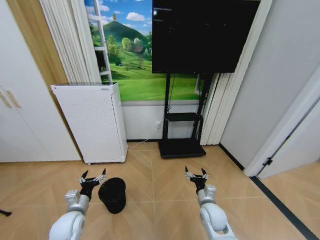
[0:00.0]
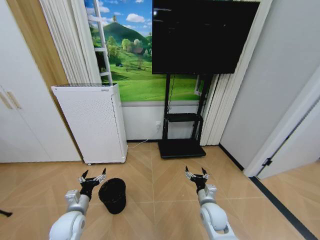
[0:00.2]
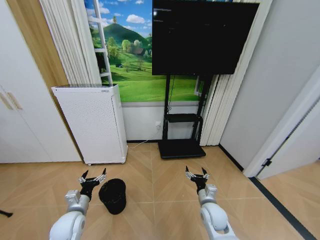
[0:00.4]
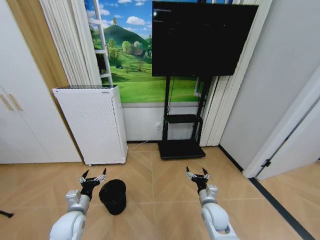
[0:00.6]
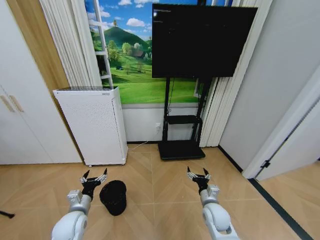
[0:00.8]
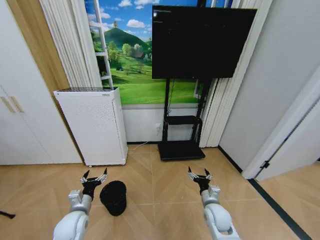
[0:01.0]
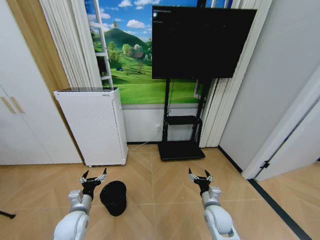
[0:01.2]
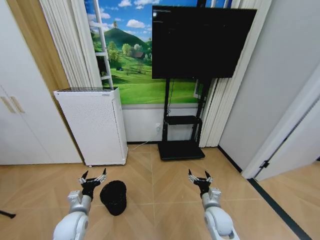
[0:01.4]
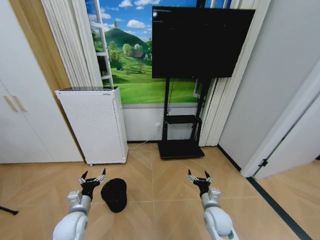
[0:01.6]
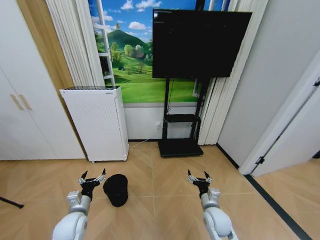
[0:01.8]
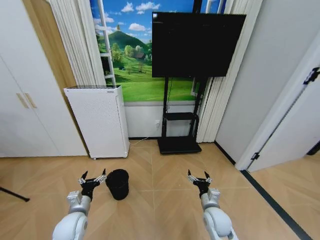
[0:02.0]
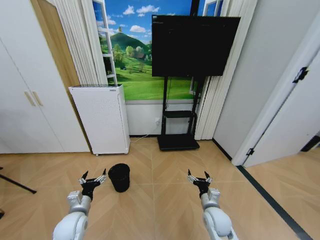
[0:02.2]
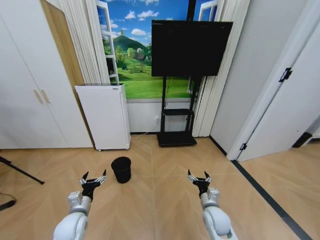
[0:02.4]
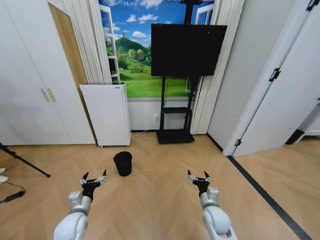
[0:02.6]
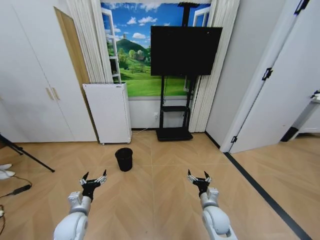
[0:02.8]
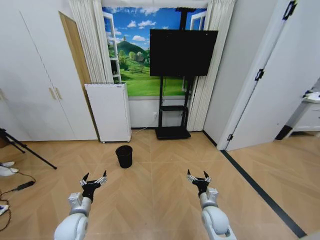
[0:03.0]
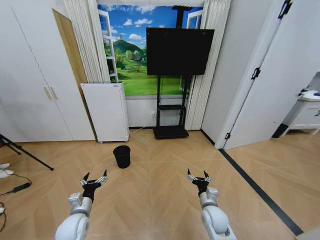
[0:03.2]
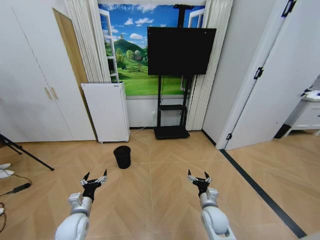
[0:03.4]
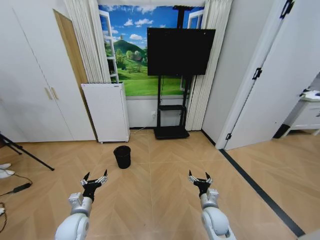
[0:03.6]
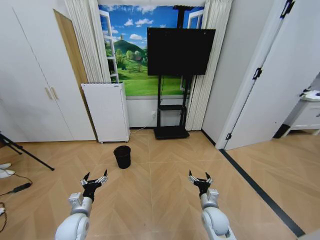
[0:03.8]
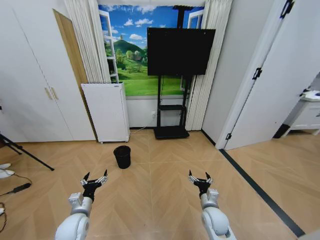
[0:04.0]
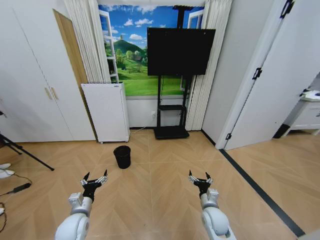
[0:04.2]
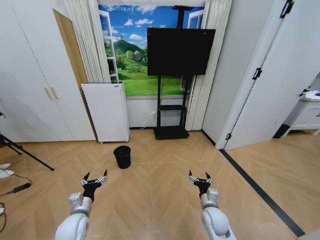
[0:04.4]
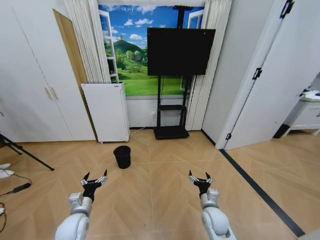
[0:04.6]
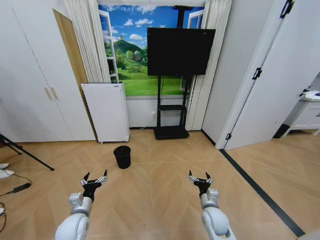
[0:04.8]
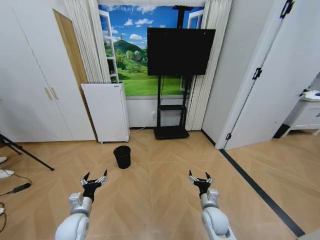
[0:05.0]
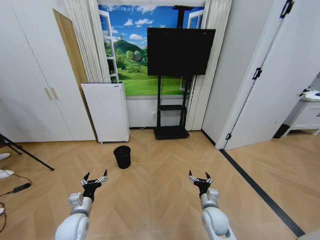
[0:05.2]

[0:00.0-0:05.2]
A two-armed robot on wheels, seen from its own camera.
Task of the whole recording: Pick up the trash bin and place the garbage on the floor into it.
0:03.4 to 0:05.2: The two grippers keep their place.

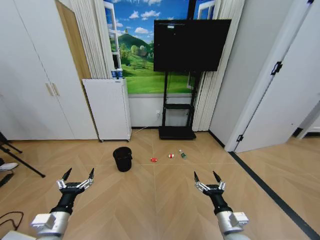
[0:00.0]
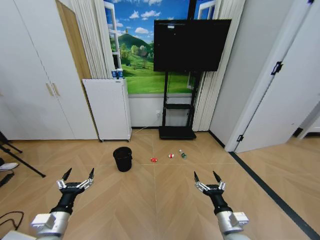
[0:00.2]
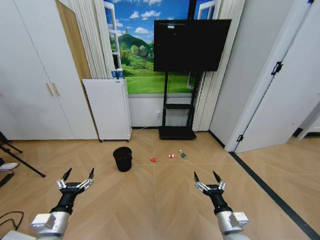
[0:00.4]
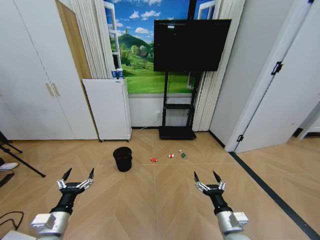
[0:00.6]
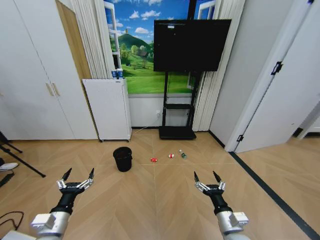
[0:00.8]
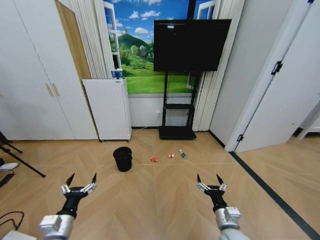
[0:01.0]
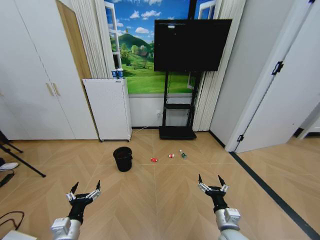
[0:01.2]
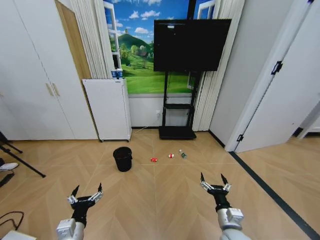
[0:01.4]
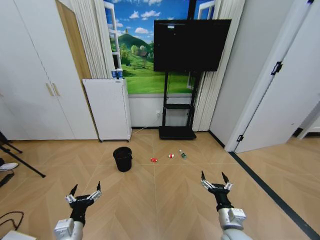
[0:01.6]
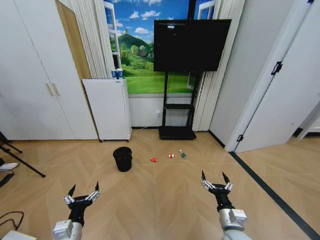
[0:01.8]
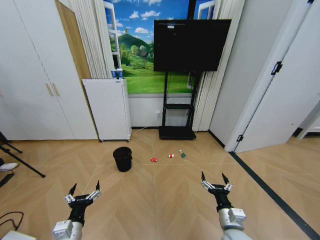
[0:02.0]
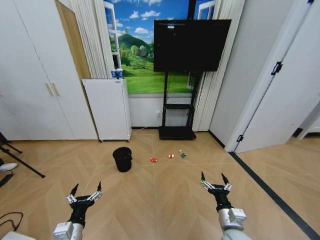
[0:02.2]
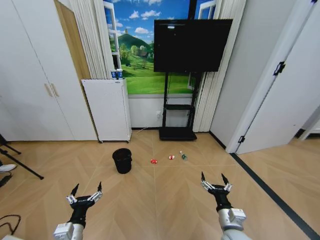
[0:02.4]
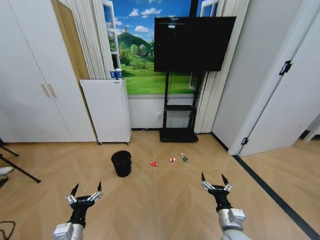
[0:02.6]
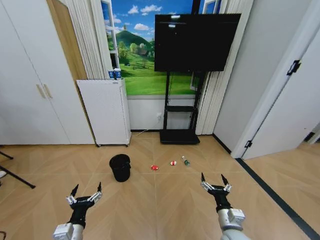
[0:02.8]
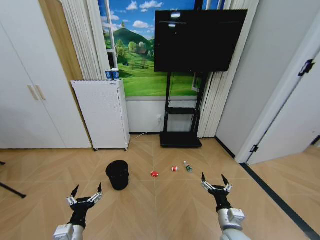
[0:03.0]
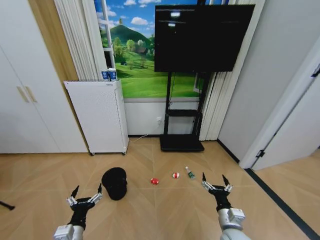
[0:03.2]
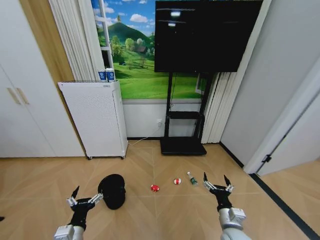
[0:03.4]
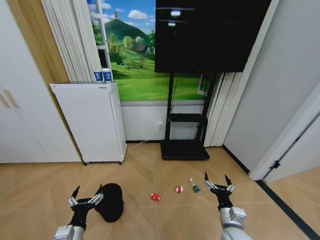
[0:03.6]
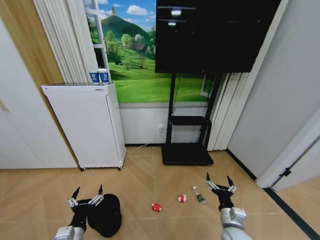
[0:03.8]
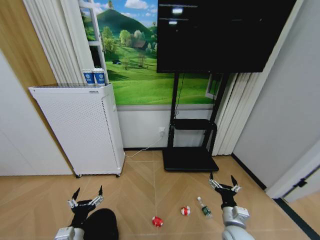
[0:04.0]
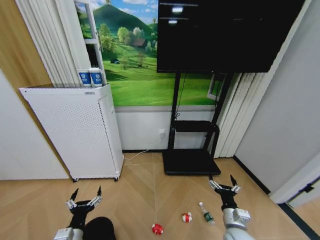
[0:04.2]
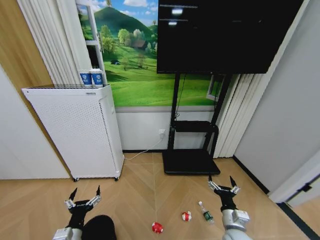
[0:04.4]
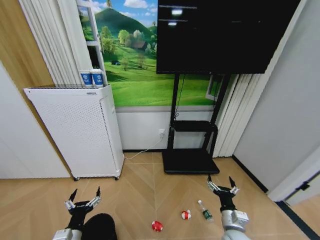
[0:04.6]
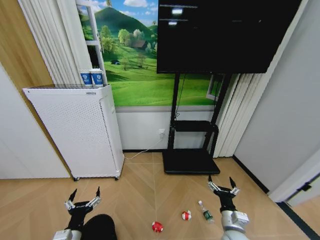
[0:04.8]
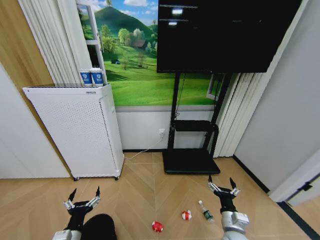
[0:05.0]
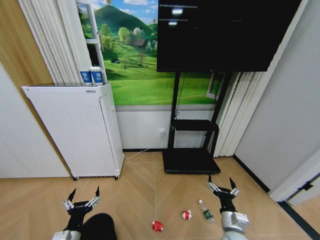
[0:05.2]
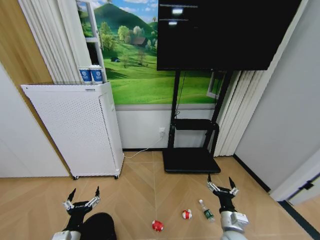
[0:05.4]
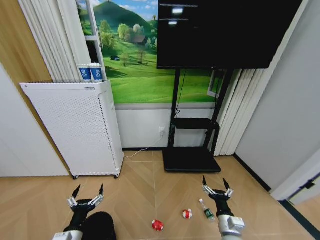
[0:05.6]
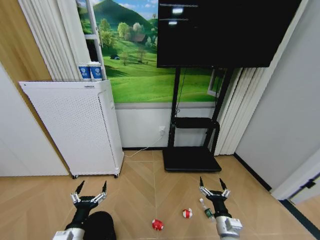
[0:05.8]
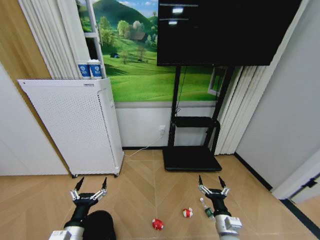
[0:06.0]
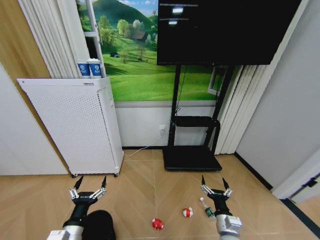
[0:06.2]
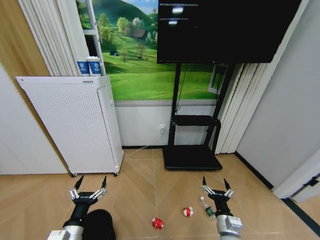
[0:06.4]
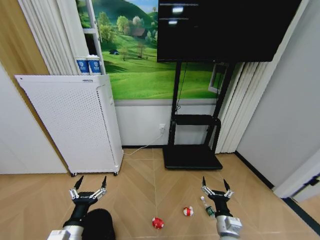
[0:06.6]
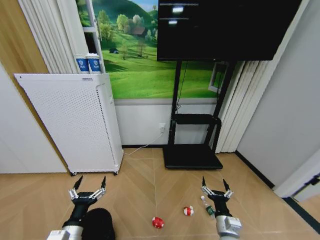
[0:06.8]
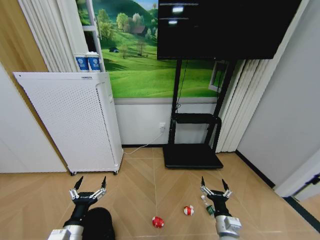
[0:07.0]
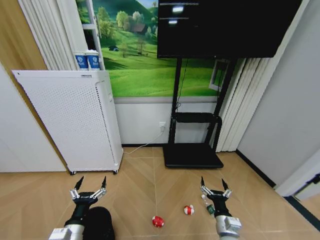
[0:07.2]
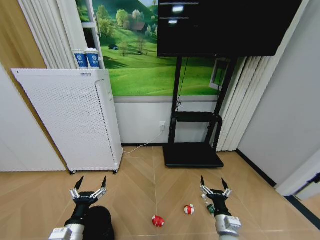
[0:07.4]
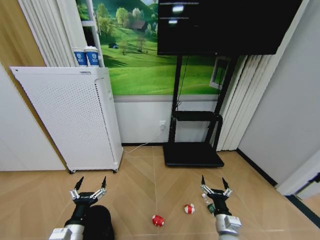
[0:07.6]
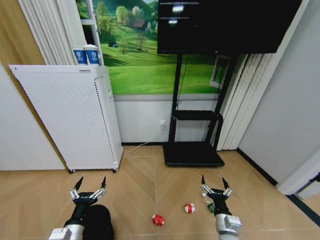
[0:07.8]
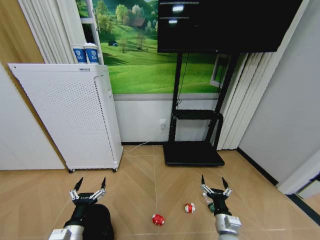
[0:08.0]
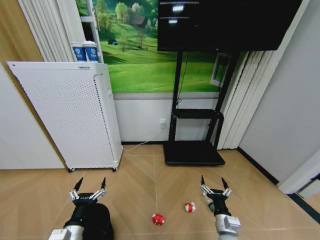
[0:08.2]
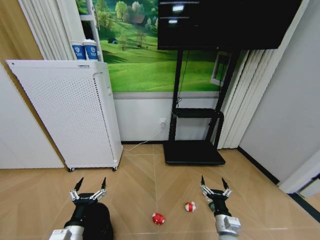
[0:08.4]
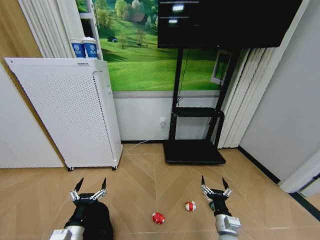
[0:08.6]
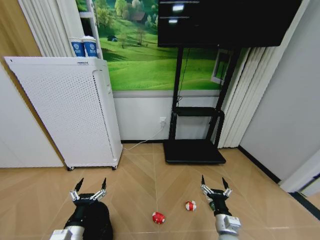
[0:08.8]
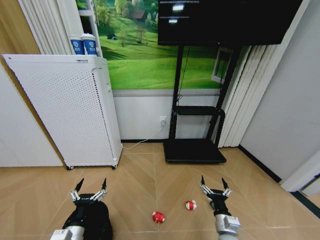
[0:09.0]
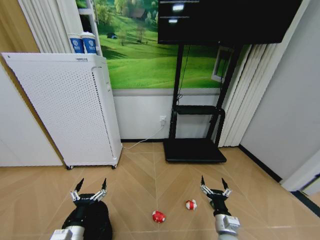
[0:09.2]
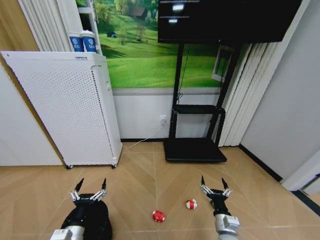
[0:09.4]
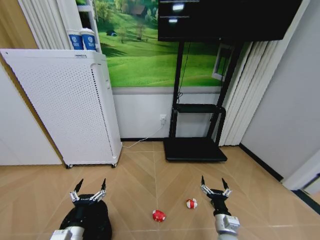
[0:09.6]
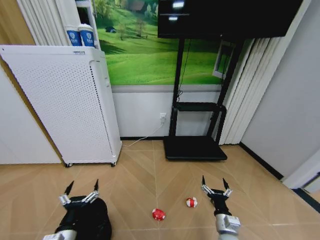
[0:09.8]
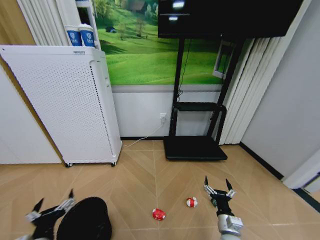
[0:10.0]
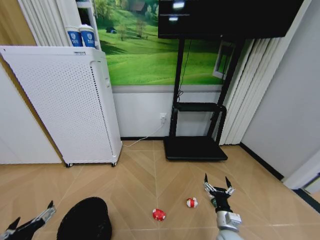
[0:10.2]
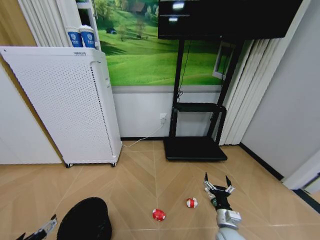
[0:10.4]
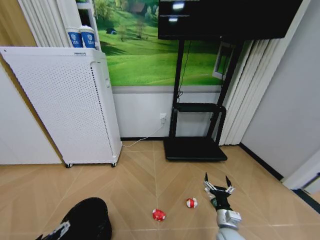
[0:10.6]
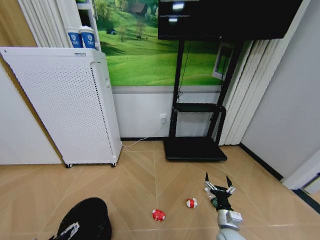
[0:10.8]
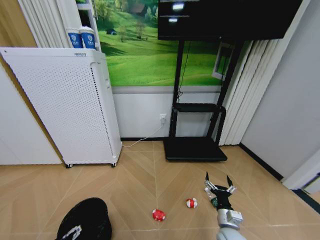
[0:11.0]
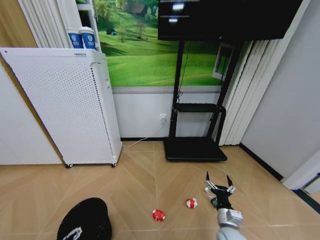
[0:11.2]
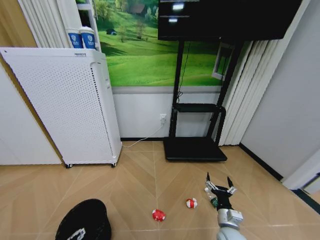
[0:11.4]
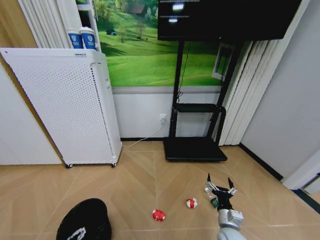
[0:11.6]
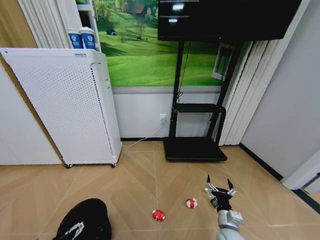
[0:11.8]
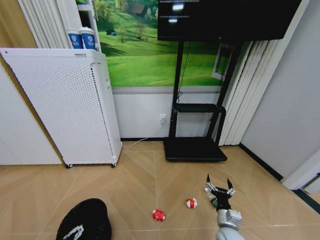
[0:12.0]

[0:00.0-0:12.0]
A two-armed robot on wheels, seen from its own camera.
Task of the whole recording: Pick up the trash bin and place the garbage on the floor into it.
0:04.4 to 0:07.6: There are only small adjustments of the grippers.
0:07.6 to 0:09.0: Neither gripper changes place.
0:09.0 to 0:10.4: The left gripper goes some 10 cm to the left, upward and backward.

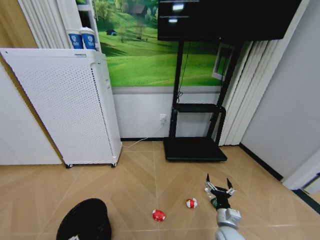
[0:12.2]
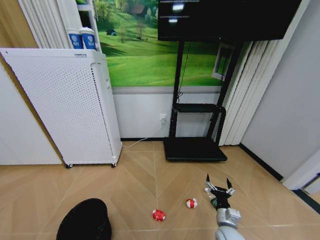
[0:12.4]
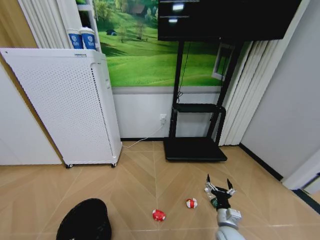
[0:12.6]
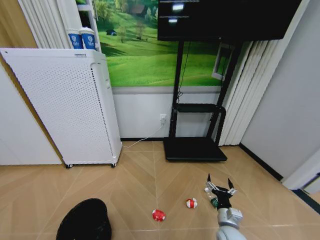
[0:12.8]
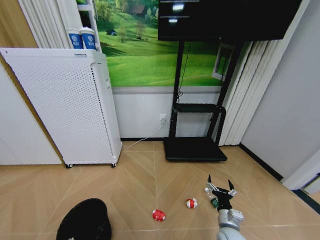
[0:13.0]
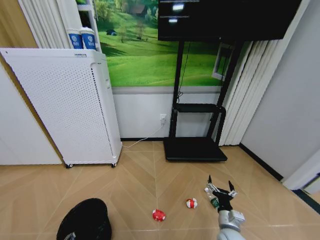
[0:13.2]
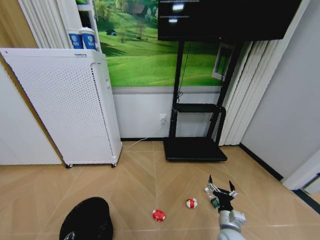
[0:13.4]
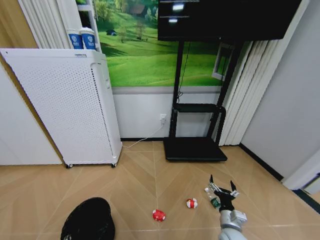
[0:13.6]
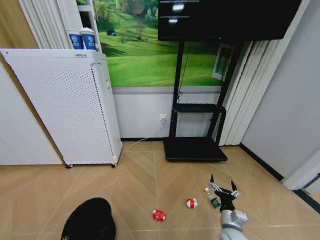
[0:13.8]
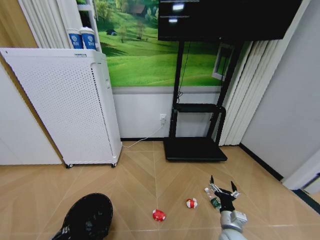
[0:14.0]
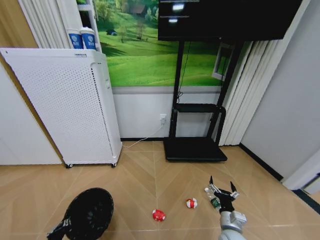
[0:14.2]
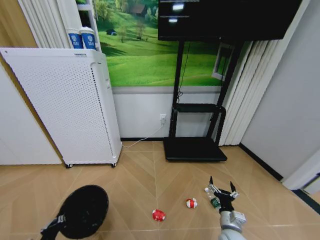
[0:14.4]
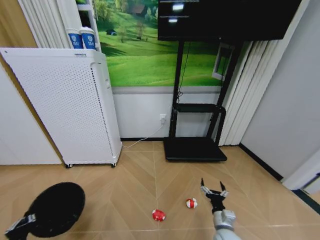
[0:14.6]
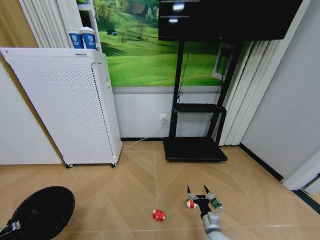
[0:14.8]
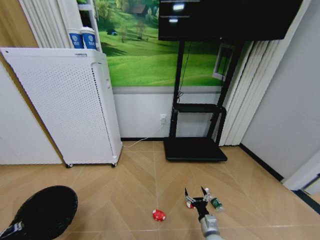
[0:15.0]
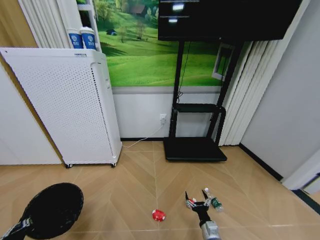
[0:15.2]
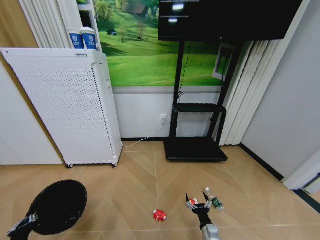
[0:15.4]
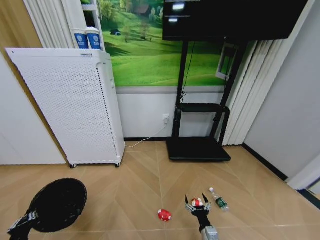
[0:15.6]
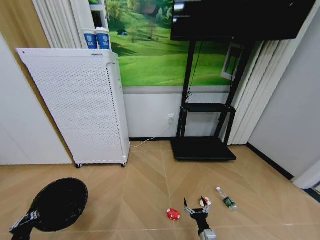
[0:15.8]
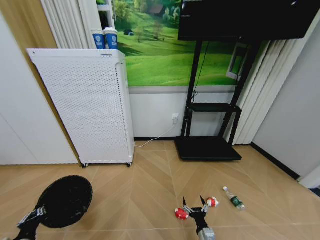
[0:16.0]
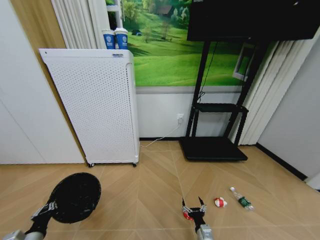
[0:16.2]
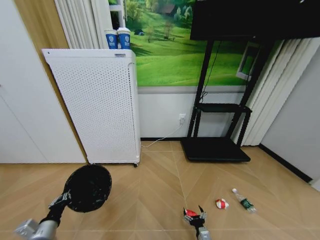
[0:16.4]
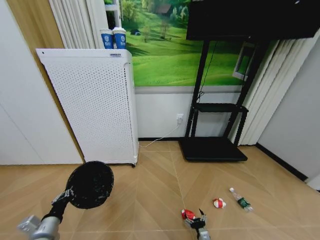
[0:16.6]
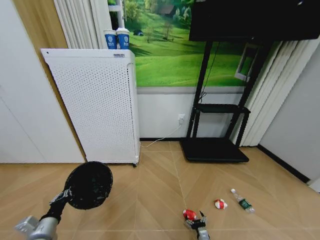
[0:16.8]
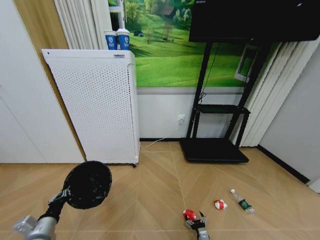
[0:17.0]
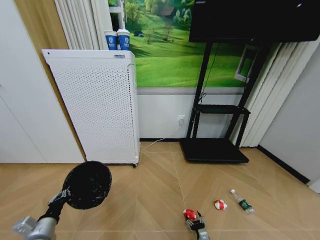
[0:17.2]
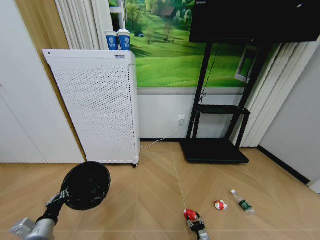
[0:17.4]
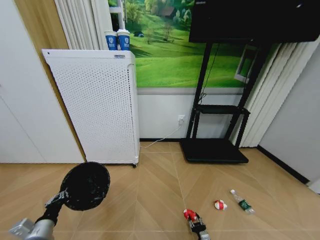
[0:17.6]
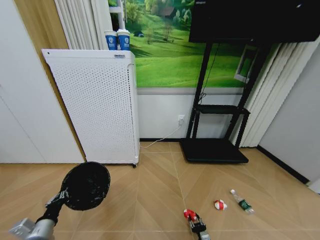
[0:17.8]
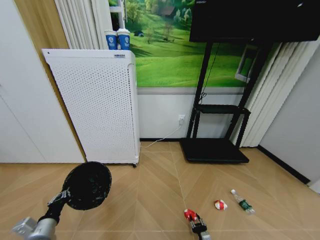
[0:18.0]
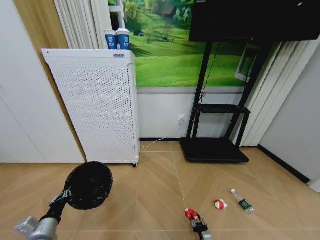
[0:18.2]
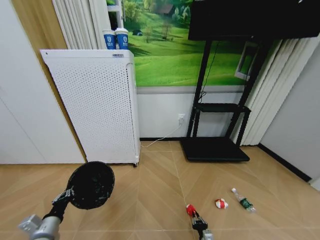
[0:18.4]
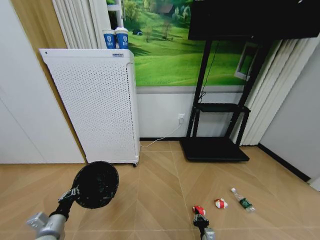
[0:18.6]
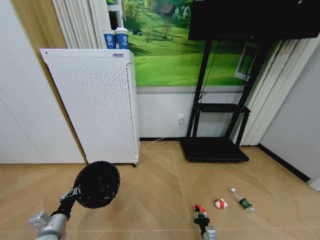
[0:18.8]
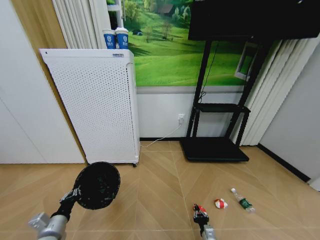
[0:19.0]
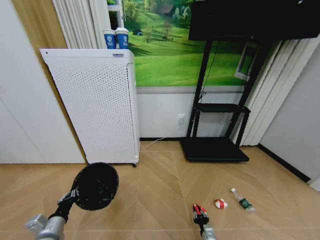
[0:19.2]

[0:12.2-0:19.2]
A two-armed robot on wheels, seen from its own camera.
Task of the whole recording: Pick up the trash bin and place the garbage on the floor into it.
0:12.2 to 0:13.6: The left gripper moves downward, about 10 cm, and closes up.
0:13.6 to 0:15.0: The right gripper heads downward, covering some 5 cm, while the left gripper moves to the left, roughly 10 cm.
0:15.0 to 0:16.4: The right gripper moves downward, roughly 10 cm; the left gripper moves to the right and forward, roughly 10 cm.
0:16.4 to 0:17.8: The right gripper heads downward, covering roughly 5 cm, and closes up.
0:17.8 to 0:19.2: The right gripper goes about 5 cm upward.
